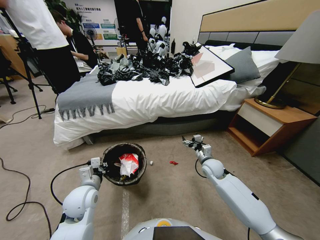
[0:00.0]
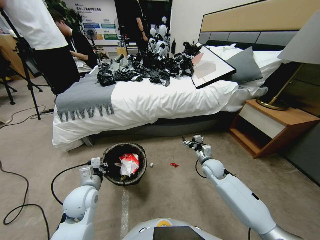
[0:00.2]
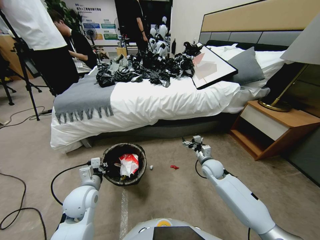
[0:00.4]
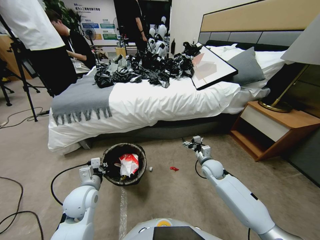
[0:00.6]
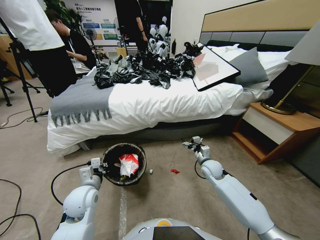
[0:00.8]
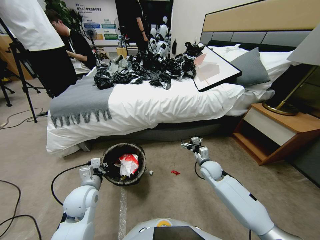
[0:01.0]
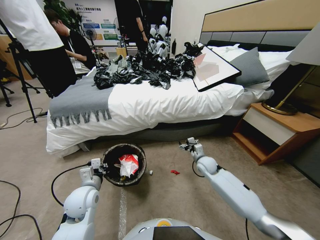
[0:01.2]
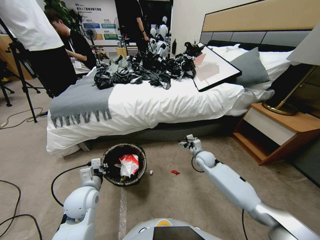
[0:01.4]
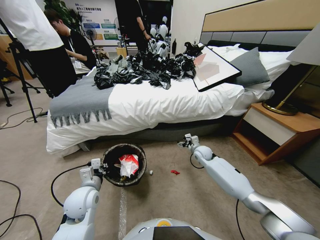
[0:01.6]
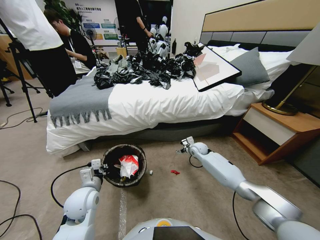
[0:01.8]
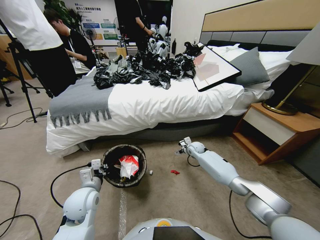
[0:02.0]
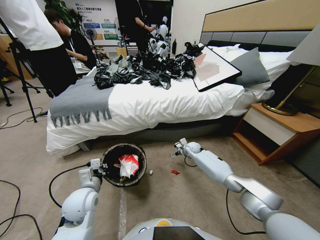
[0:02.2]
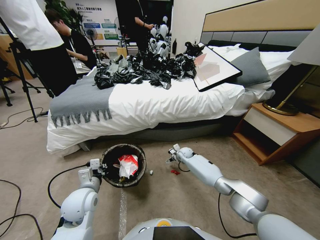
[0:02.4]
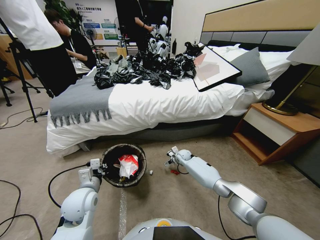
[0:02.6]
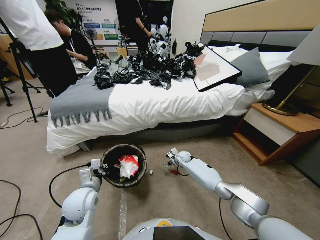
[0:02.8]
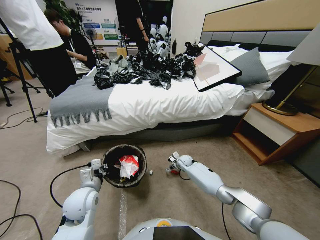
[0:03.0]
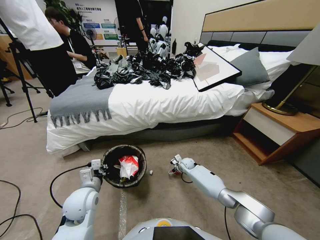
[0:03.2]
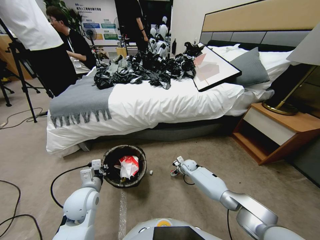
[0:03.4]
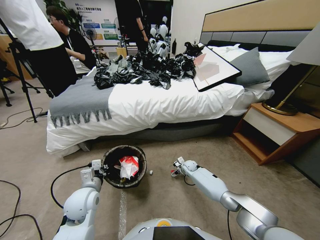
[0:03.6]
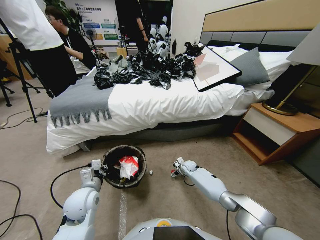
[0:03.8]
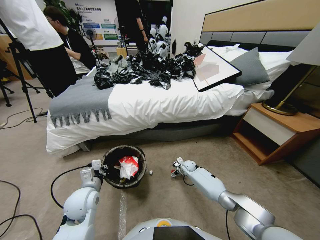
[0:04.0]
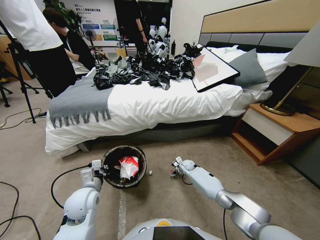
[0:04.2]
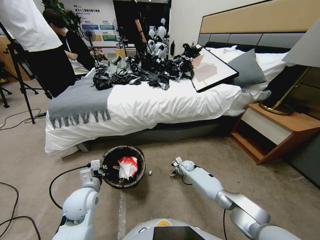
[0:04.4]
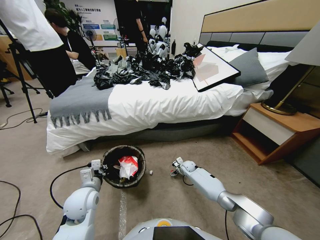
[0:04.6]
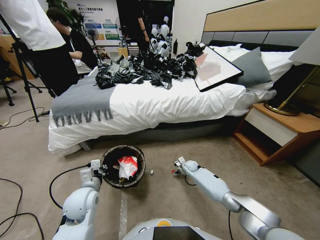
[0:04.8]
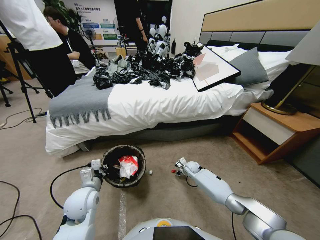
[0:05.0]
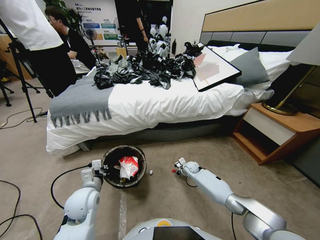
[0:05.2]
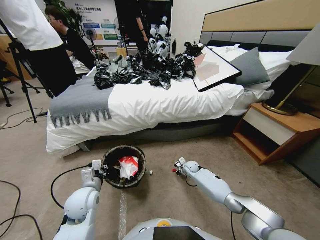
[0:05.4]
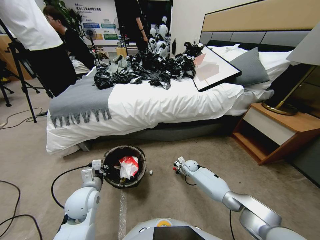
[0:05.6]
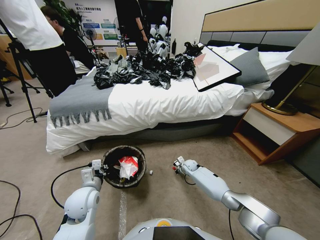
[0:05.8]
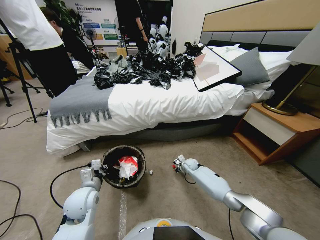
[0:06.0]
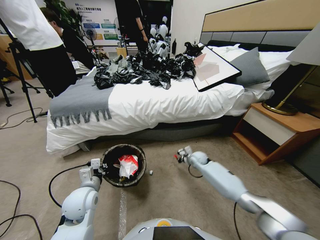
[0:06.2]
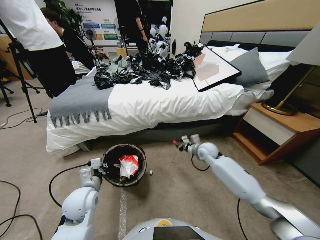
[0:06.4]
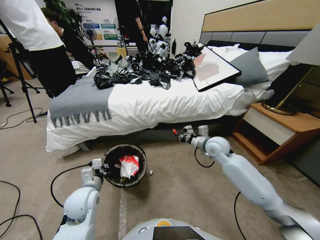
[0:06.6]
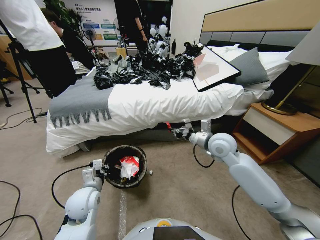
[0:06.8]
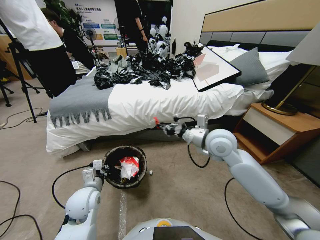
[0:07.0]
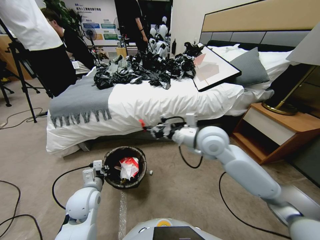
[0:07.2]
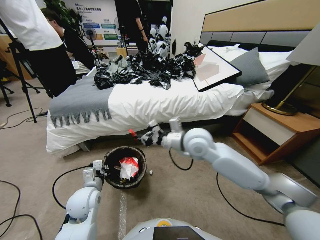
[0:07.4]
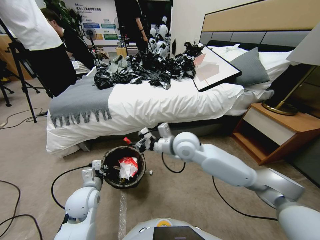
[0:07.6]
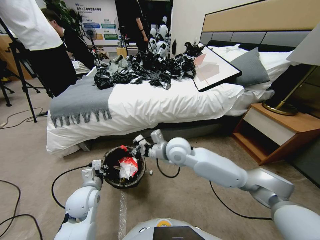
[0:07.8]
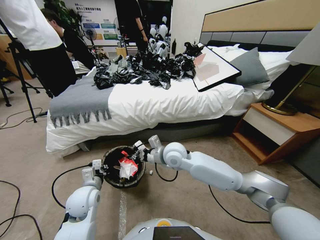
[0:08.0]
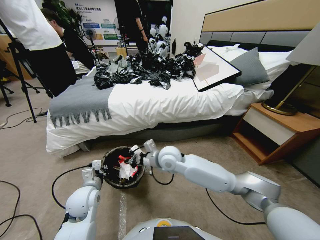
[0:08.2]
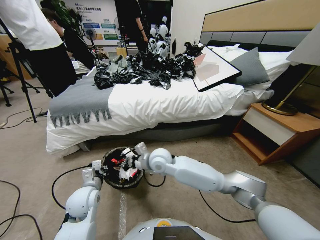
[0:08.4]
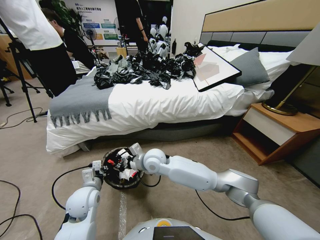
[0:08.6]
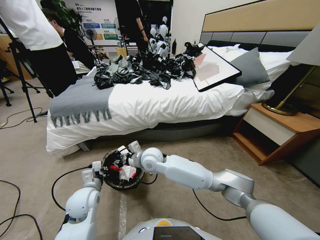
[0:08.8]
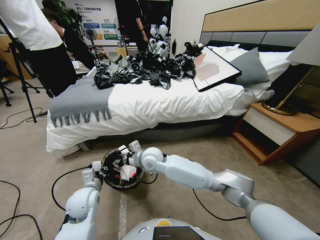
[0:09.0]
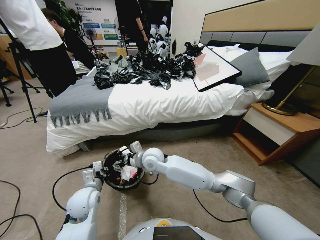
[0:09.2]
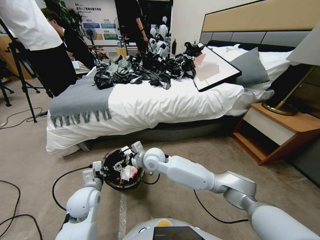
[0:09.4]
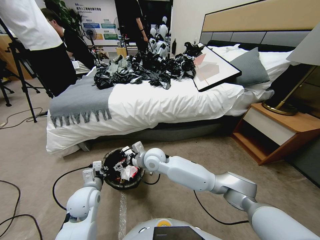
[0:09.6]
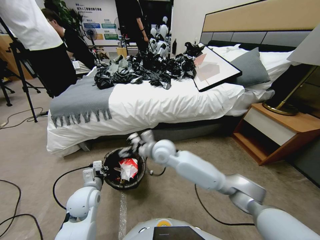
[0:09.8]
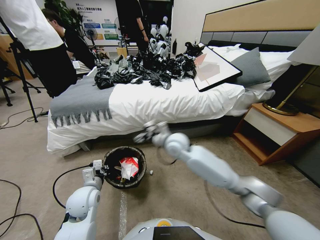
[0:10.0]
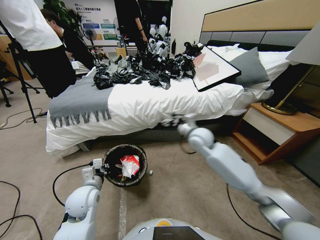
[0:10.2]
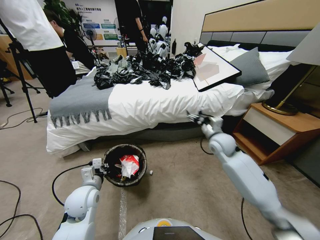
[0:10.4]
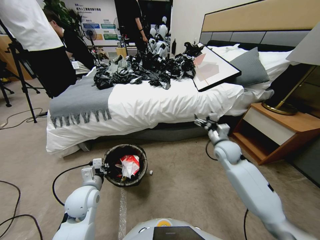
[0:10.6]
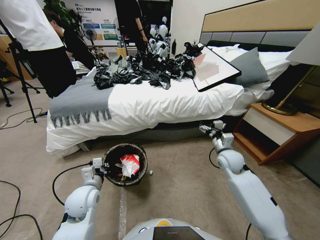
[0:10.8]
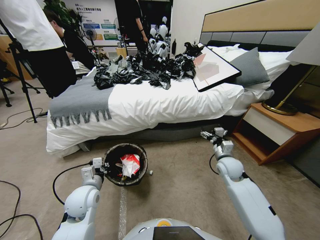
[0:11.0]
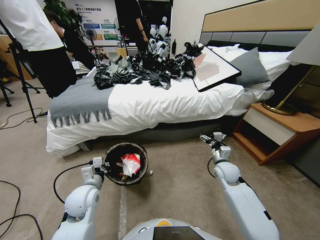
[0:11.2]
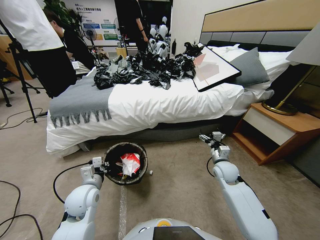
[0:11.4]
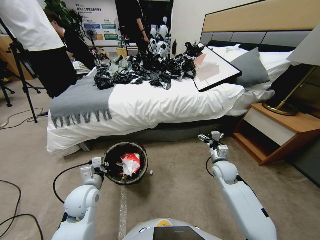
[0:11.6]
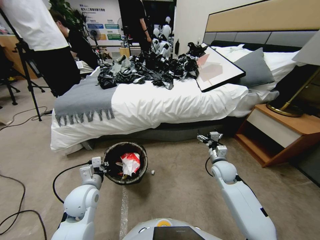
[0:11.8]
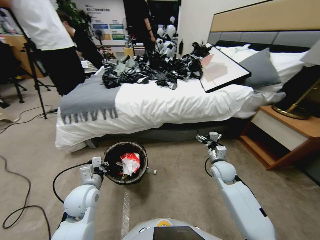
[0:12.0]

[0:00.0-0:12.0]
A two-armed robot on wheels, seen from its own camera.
Task of the whole recording: Pick up the trash bin, then pick up the garbage from the floor and place it into the trash bin.
0:00.0 to 0:01.6: The right gripper moves forward, about 10 cm.
0:01.6 to 0:03.0: The right gripper travels downward and to the left by approximately 15 cm.
0:03.0 to 0:04.4: There are only small adjustments of the grippers.
0:04.4 to 0:06.0: The right gripper travels upward by some 10 cm, and closes its fingers.
0:06.0 to 0:07.6: The right gripper is displaced upward and to the left by approximately 30 cm.
0:07.6 to 0:09.0: The right gripper is displaced to the left and downward by some 10 cm, and opens.
0:09.0 to 0:10.4: The right gripper heads to the right, covering roughly 30 cm, and opens.
0:10.4 to 0:12.0: The right gripper travels downward and backward by some 10 cm.

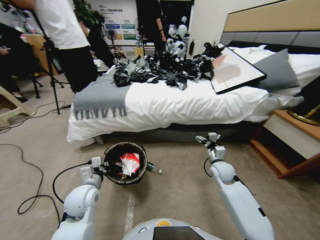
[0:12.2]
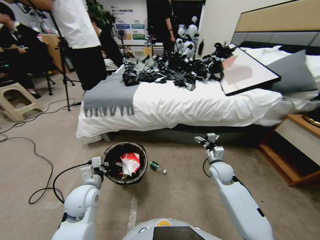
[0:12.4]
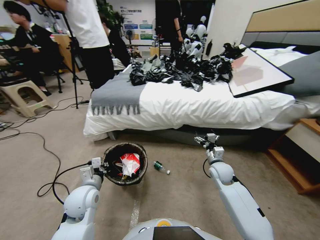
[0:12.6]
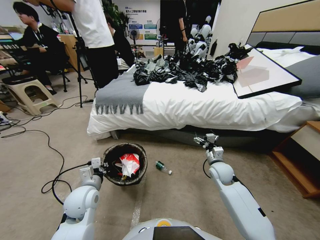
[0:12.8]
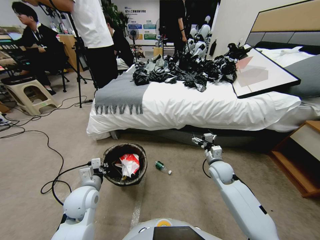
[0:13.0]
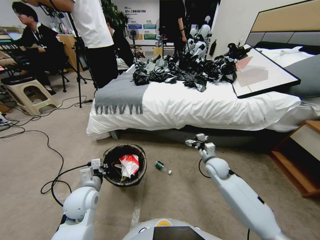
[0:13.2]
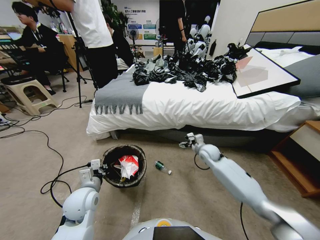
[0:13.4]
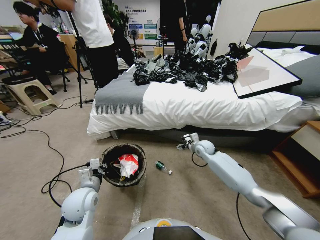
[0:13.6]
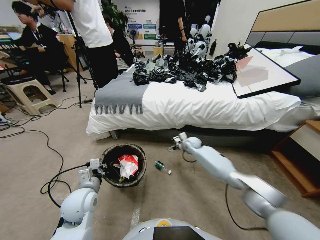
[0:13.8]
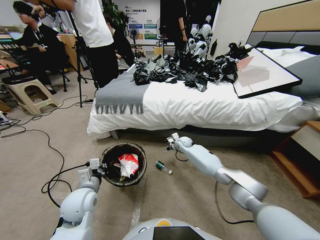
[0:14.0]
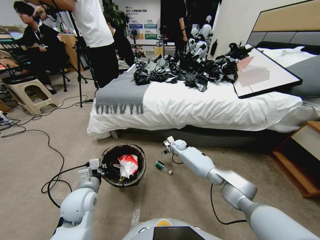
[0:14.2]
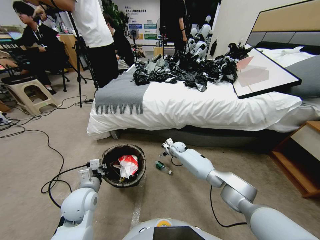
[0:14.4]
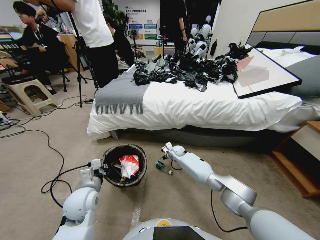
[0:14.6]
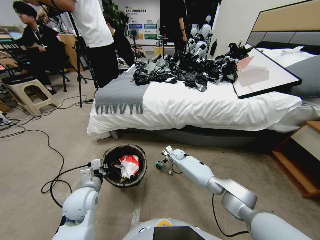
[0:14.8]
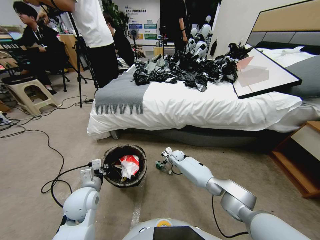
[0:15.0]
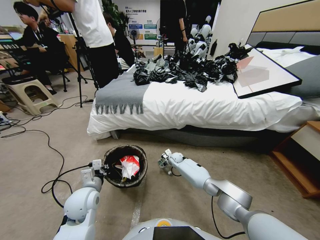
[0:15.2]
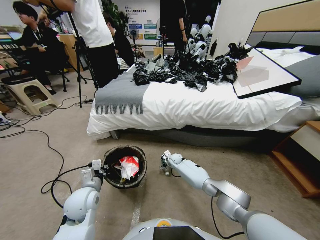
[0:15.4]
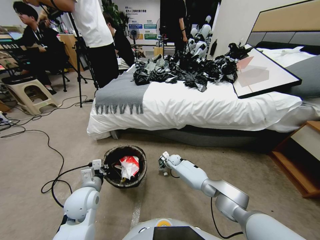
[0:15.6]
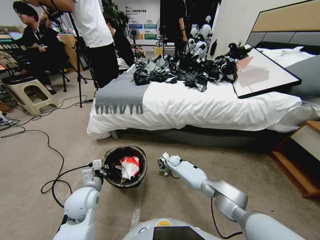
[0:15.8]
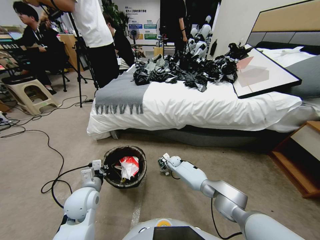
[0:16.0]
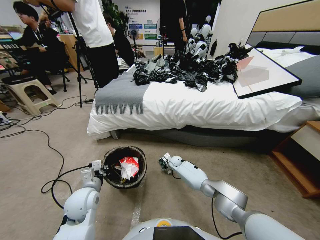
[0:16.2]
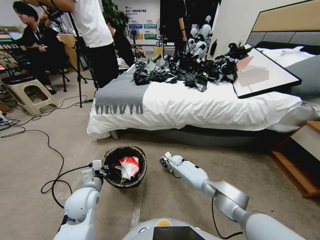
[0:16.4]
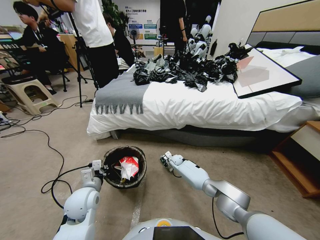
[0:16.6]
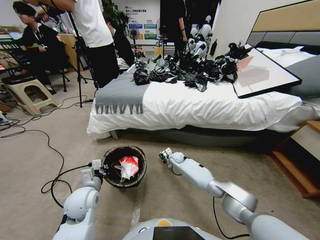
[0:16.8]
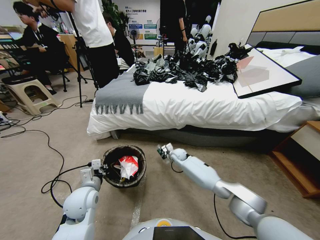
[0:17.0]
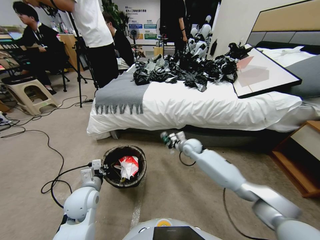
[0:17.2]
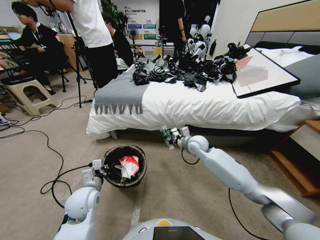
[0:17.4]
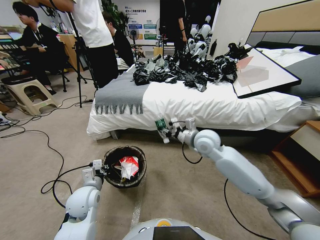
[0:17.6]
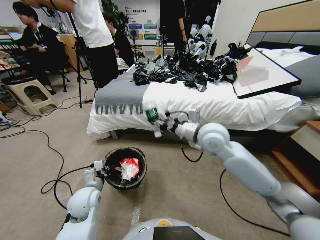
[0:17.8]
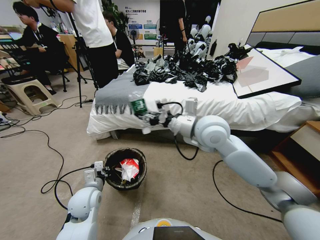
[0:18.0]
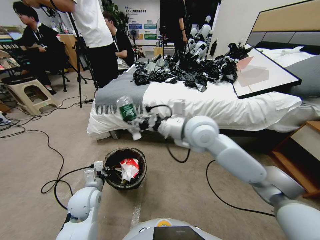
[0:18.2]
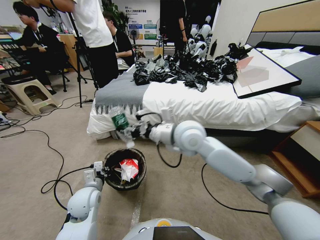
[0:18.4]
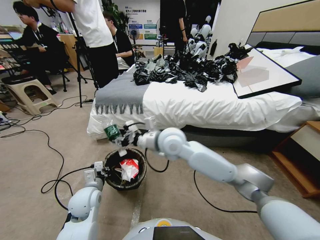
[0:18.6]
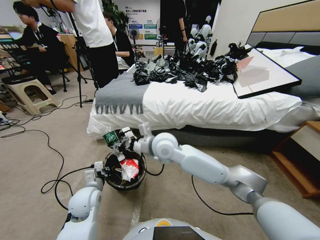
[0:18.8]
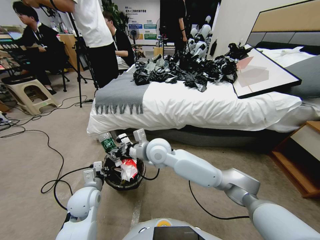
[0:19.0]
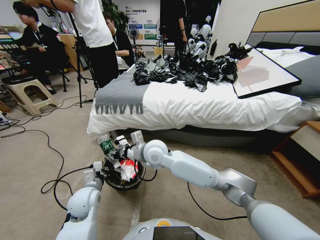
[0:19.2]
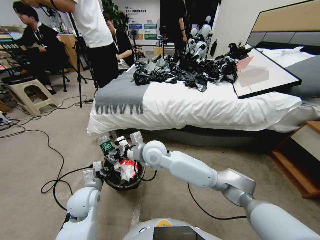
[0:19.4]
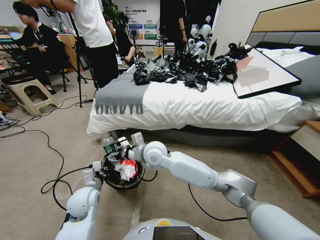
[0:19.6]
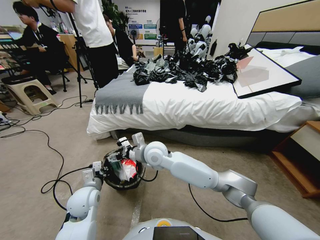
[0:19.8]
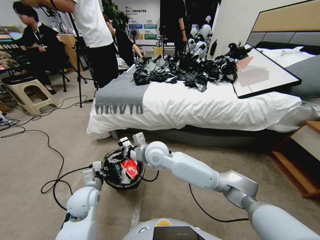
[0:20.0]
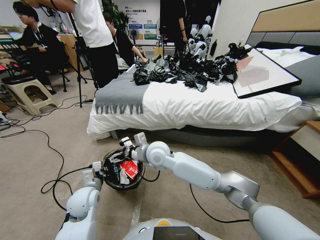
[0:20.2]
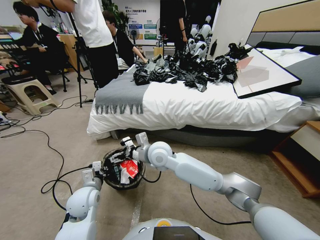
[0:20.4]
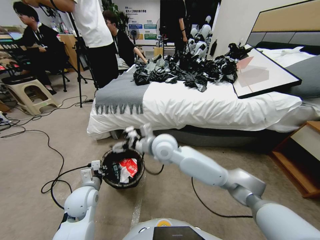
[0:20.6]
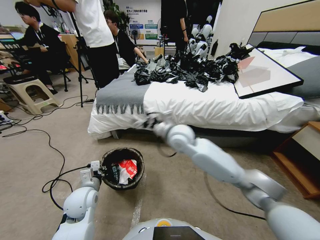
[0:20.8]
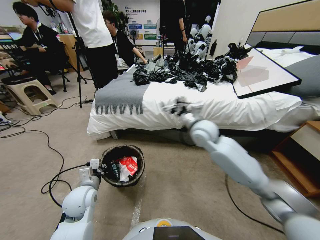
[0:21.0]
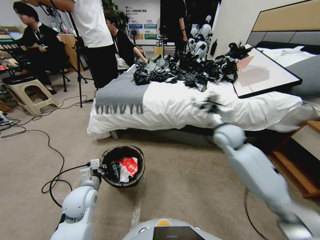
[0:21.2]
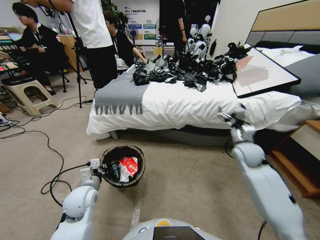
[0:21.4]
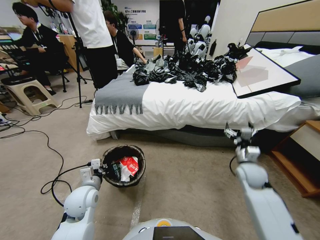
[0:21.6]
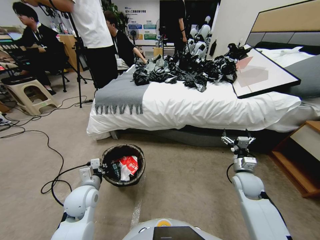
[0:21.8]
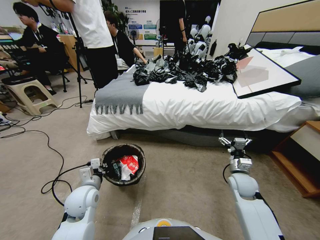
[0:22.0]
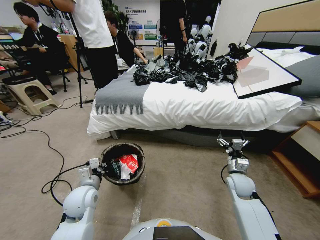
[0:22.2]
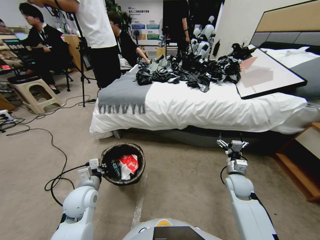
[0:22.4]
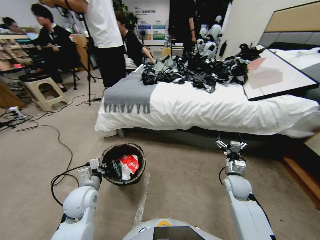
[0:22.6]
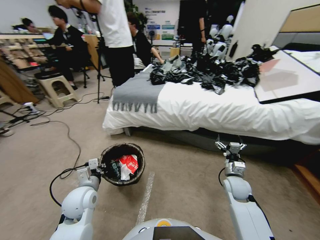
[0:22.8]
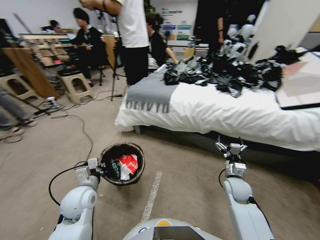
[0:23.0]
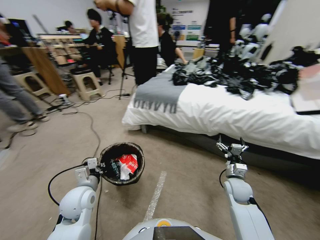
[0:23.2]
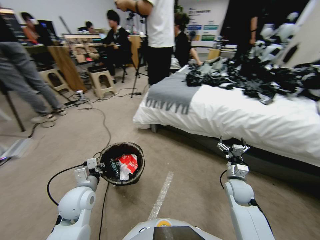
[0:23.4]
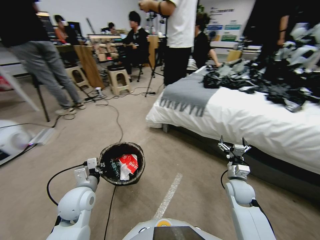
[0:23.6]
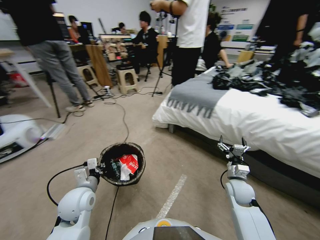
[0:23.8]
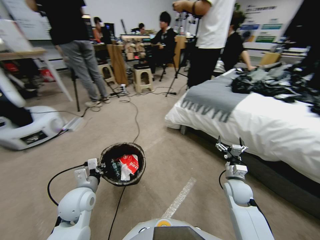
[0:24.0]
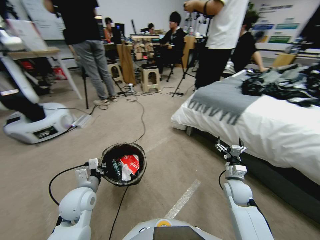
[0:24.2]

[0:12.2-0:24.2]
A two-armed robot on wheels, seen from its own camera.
Task of the whole recording: Pick up the trash bin, then pick up the garbage from the floor and place it into the trash bin.
0:12.2 to 0:13.8: The right gripper moves forward and to the left, some 25 cm.
0:13.8 to 0:15.2: The right gripper is displaced downward, backward and to the left by approximately 15 cm.
0:15.2 to 0:16.6: The right gripper closes.
0:16.6 to 0:18.2: The right gripper travels upward by roughly 40 cm.
0:18.2 to 0:19.8: The right gripper shifts some 15 cm downward and to the left, and opens up.
0:19.8 to 0:21.2: The right gripper shifts some 35 cm to the right.
0:21.2 to 0:22.6: The right gripper is displaced downward and backward by roughly 20 cm.
